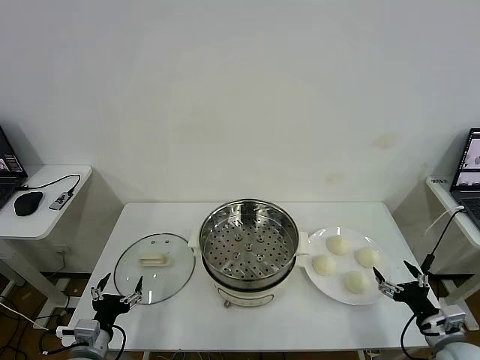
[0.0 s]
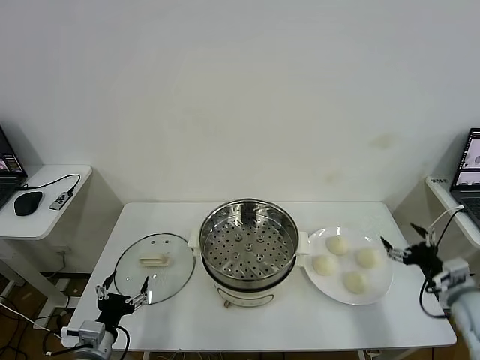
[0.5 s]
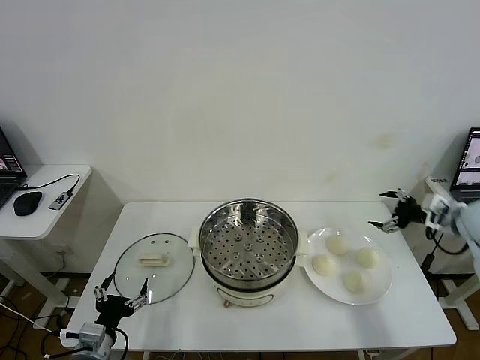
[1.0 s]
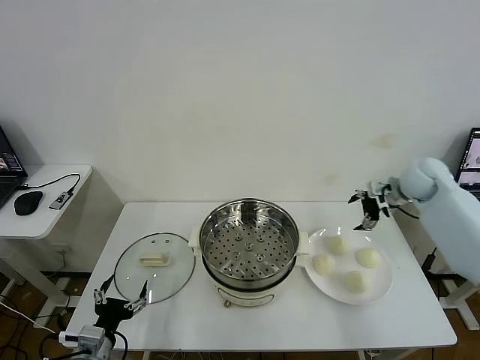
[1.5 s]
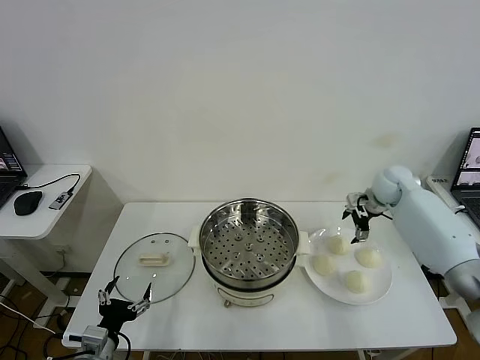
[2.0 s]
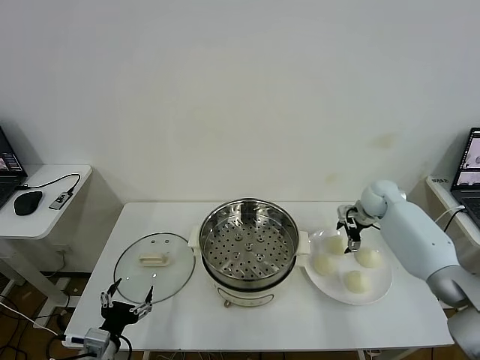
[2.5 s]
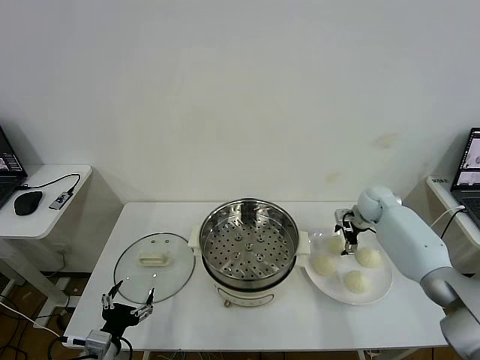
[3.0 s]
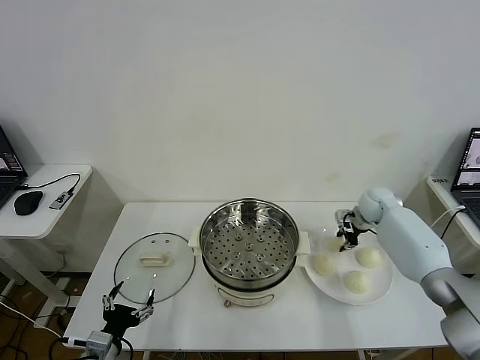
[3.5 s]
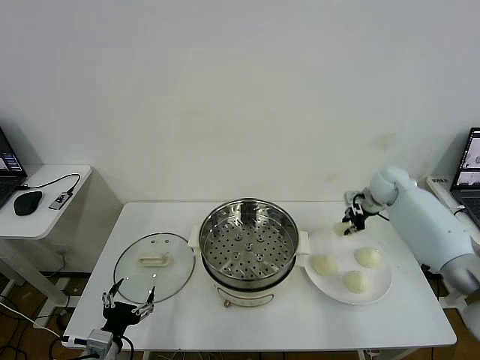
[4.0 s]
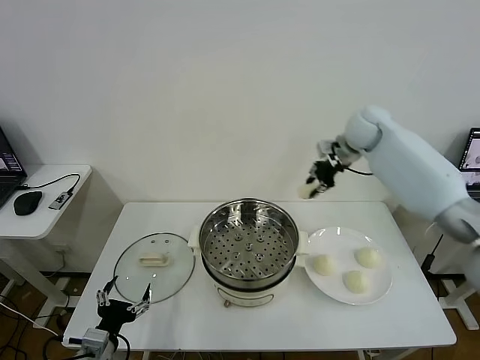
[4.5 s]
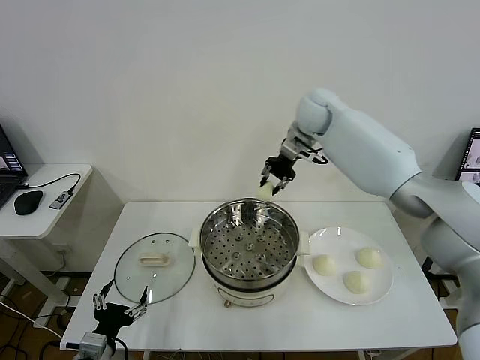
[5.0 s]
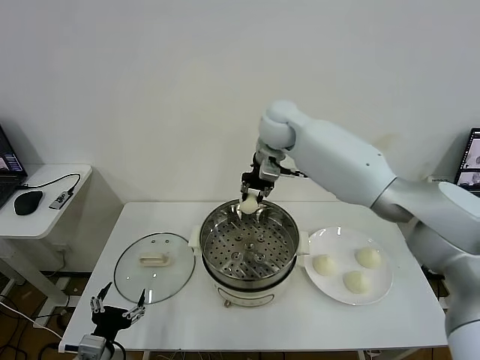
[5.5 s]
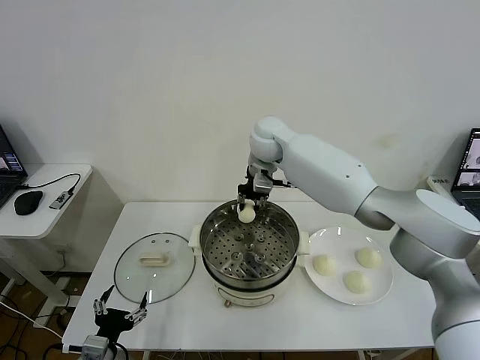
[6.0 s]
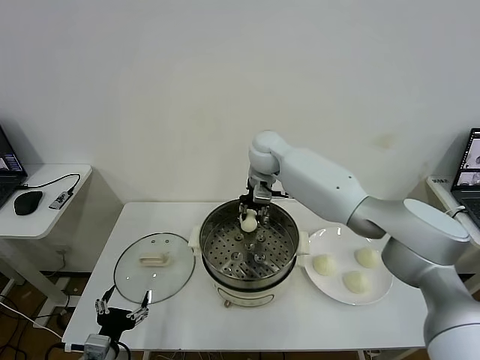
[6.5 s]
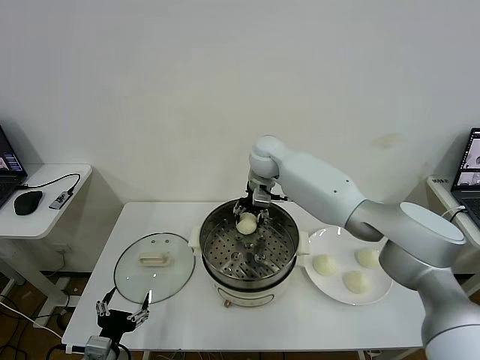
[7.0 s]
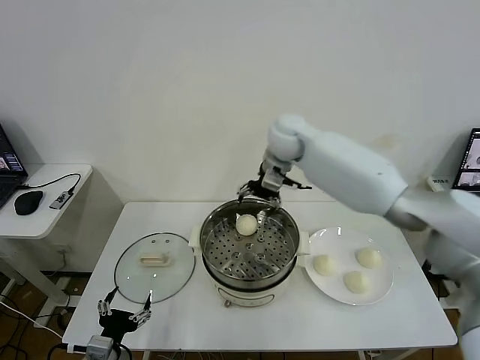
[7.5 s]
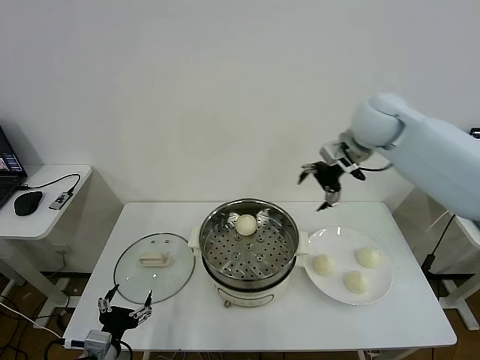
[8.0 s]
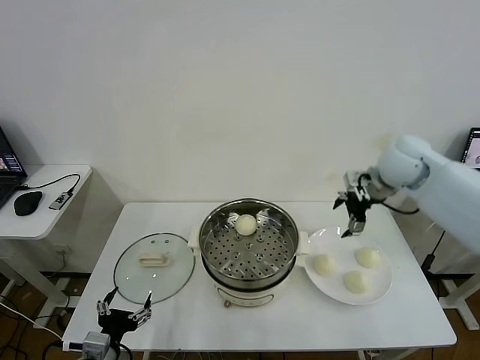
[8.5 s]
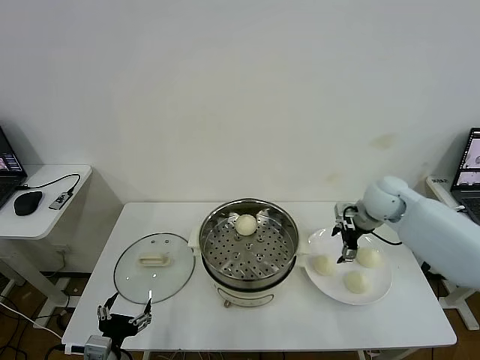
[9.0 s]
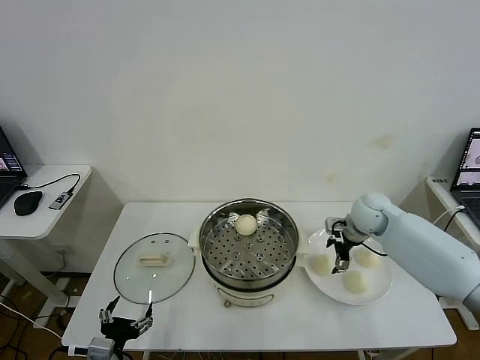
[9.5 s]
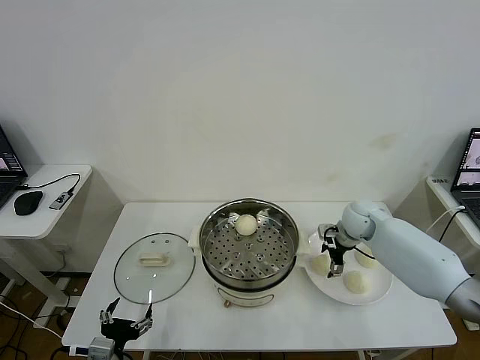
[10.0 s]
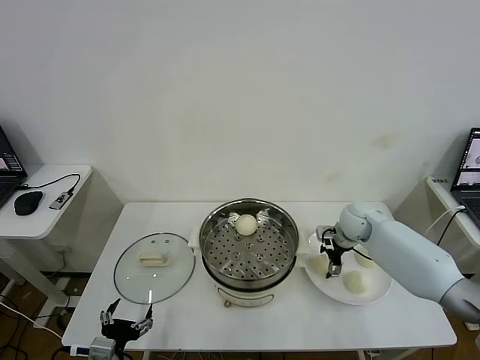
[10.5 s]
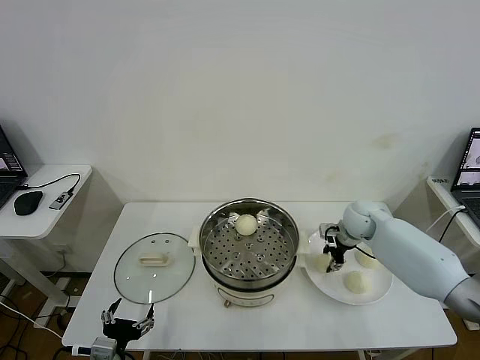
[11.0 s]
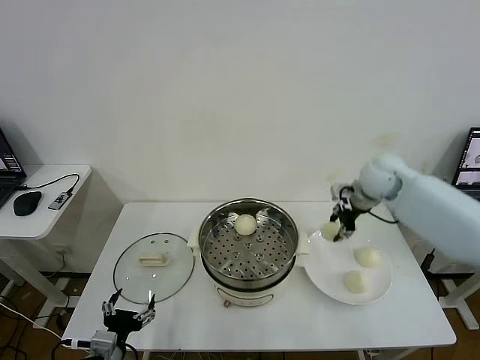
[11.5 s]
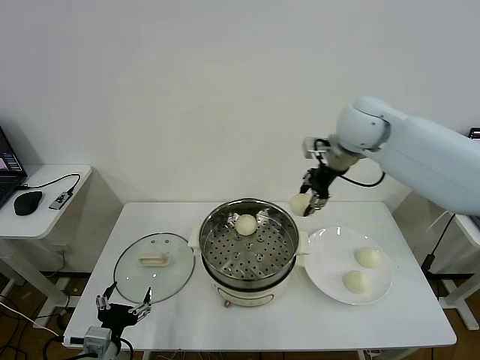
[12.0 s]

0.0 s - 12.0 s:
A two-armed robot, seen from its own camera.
Task of the whole recording: take steamed baozi put them in steamer then cover it.
Step, 0.0 s - 3.5 s: Grasp the baozi in the plate with right gripper.
Step, 4.0 s - 7.0 s: Place the baozi on the steamer with right gripper.
Step, 7.5 s - 11.0 s: Grasp the baozi in the plate with right gripper.
2.0 s - 4.0 s: The right gripper moves upward, approximately 5 cm, and closes up.
4.0 s - 6.0 s: The right gripper goes about 30 cm to the left.
6.0 s - 8.0 s: The right gripper goes approximately 20 cm to the right, and opens.
8.0 s - 10.0 s: The right gripper is displaced downward by roughly 25 cm.
10.0 s - 12.0 s: The right gripper moves upward, roughly 25 cm, and closes up.

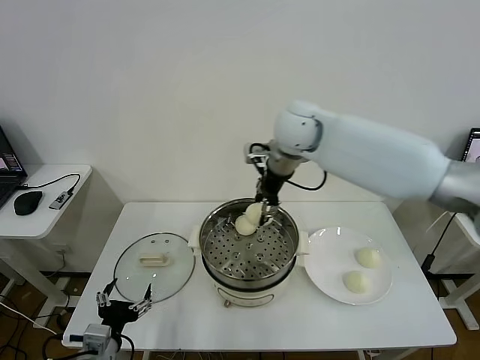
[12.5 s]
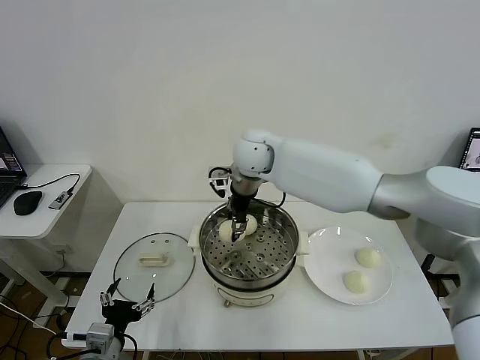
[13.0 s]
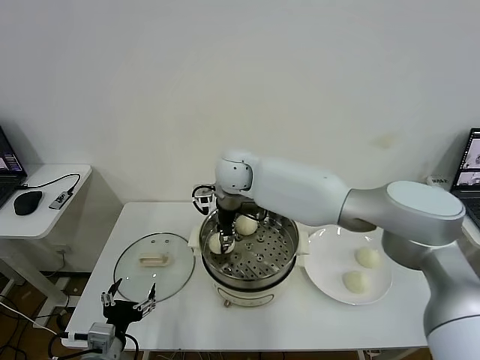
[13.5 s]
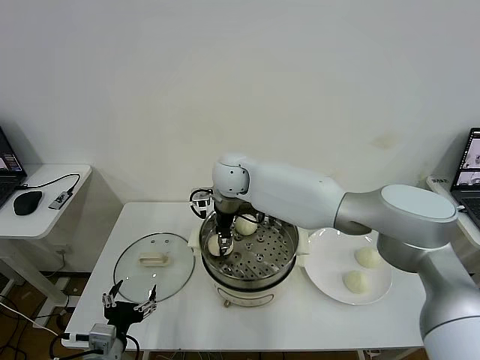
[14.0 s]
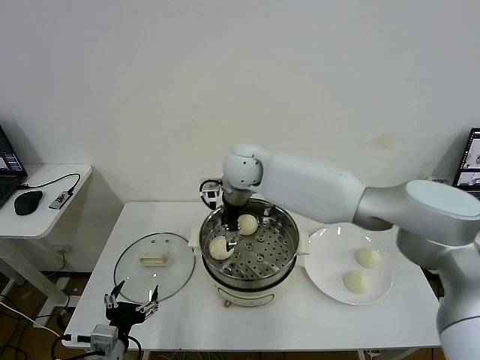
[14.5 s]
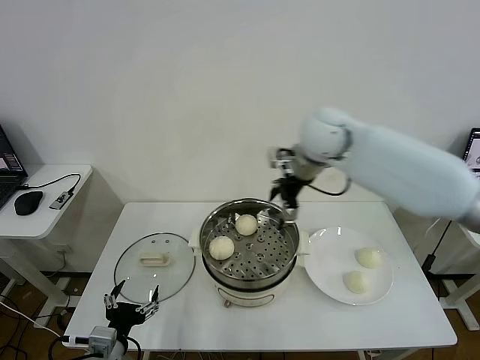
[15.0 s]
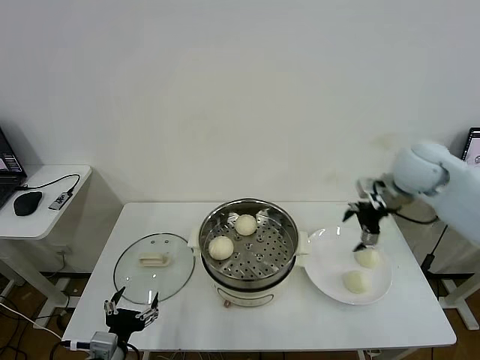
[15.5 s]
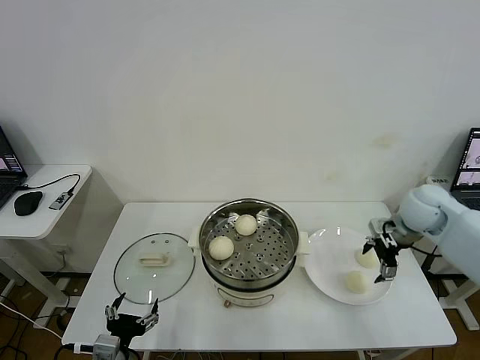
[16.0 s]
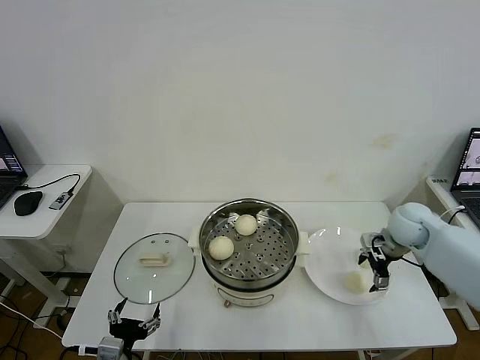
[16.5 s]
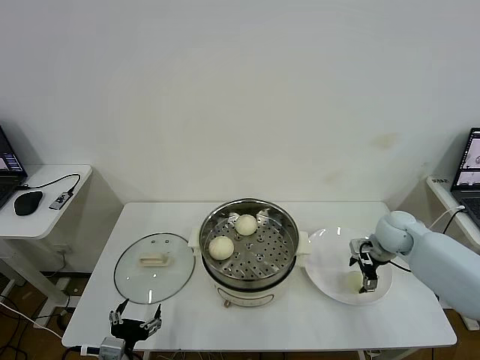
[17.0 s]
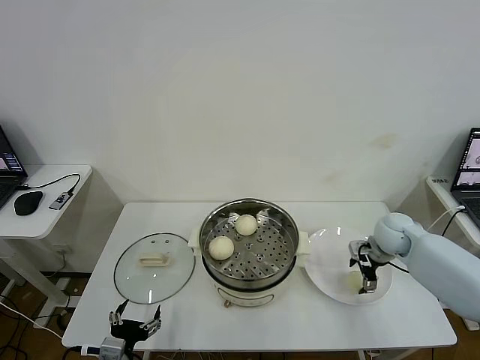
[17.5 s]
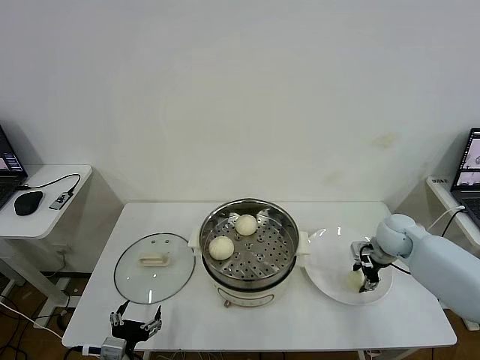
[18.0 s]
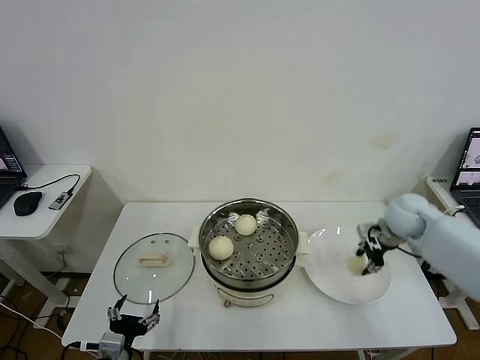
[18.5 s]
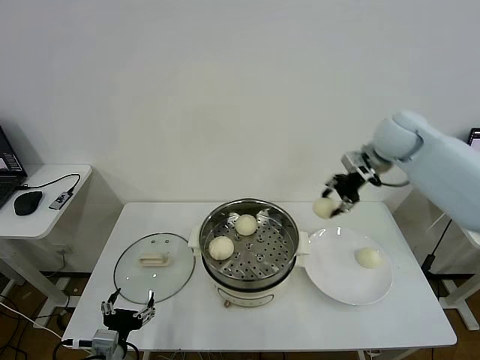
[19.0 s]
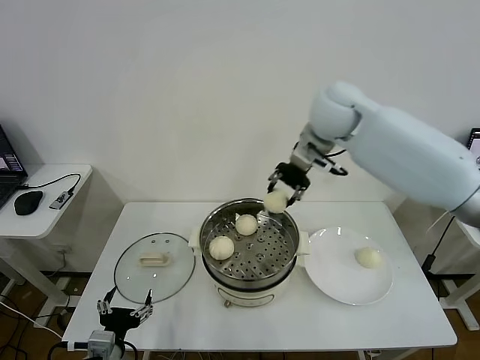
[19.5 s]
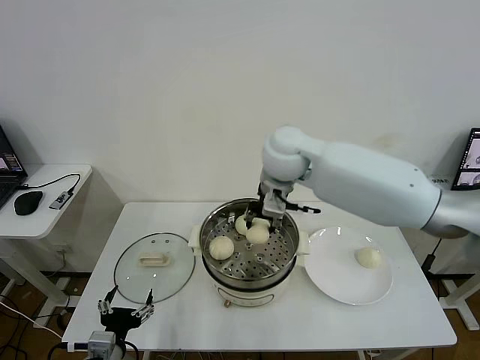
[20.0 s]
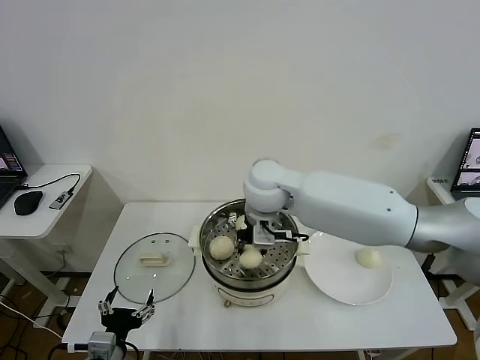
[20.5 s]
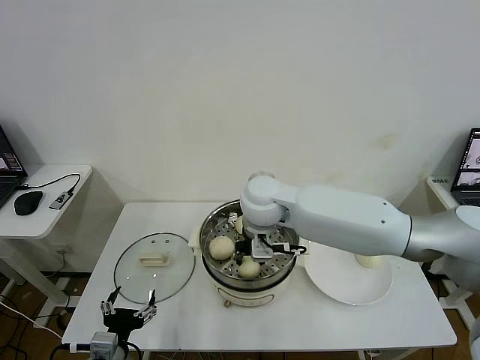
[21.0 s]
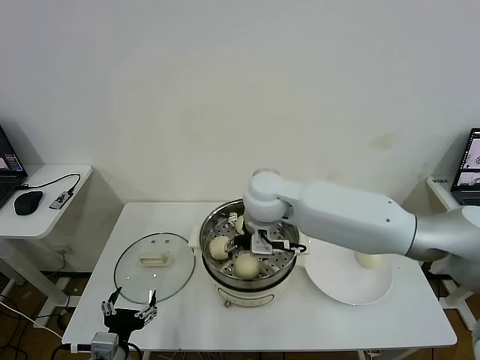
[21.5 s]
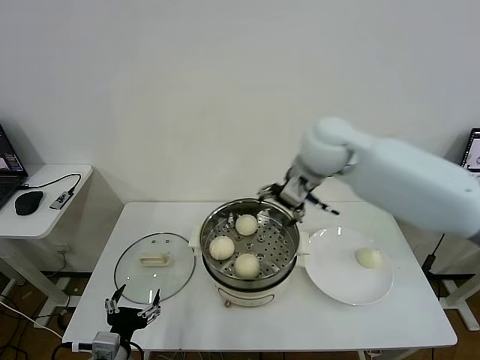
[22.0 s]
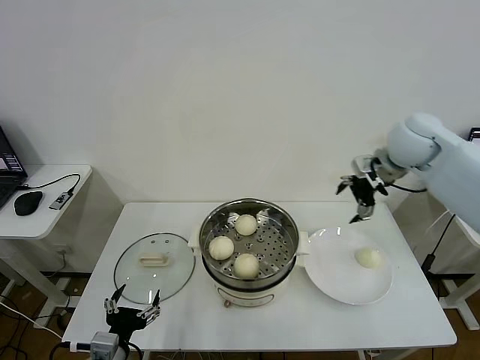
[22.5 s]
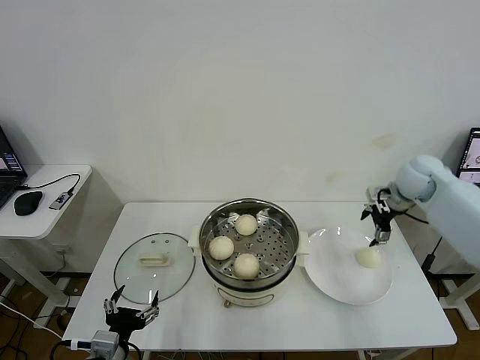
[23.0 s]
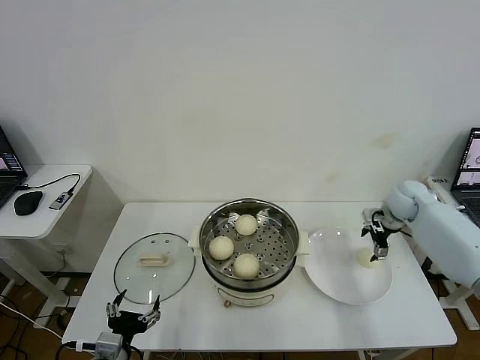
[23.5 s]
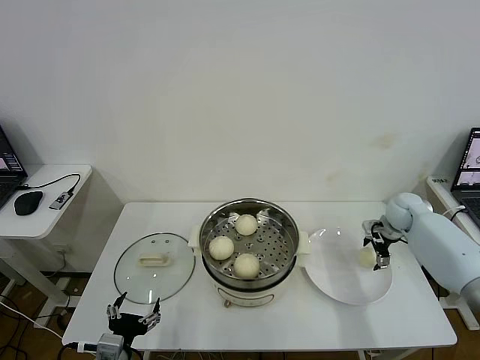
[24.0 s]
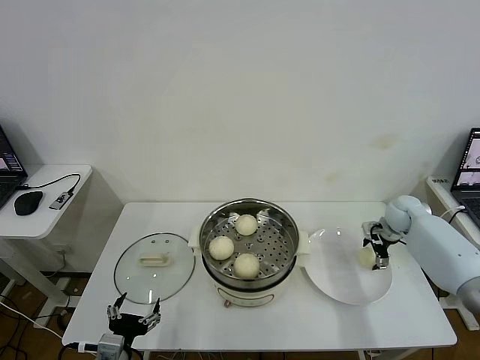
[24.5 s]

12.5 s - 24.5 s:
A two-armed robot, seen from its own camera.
Task of the whole recording: take steamed baozi put them in steamer then cover it.
Step, 15.0 s - 18.0 s: Grasp the baozi in the plate with right gripper.
Step, 18.5 s - 21.5 s: Place the baozi on the steamer with right gripper.
12.5 s - 14.5 s: The right gripper travels to the left and downward by some 10 cm, and opens up.
14.5 s - 16.5 s: The right gripper heads to the right, covering approximately 35 cm.
16.5 s - 18.5 s: The right gripper closes its fingers.
18.5 s - 20.5 s: The right gripper heads to the left, covering roughly 35 cm.
20.5 s - 22.5 s: The right gripper moves to the right, about 30 cm, and opens up.
22.5 s - 24.5 s: The right gripper shifts some 25 cm downward and to the right.

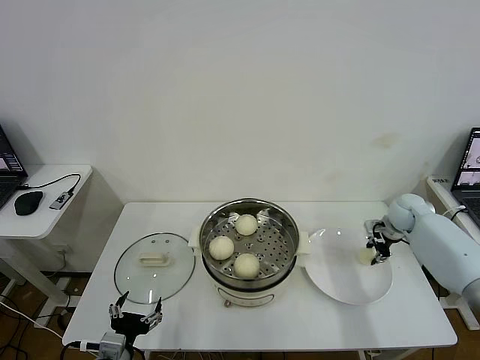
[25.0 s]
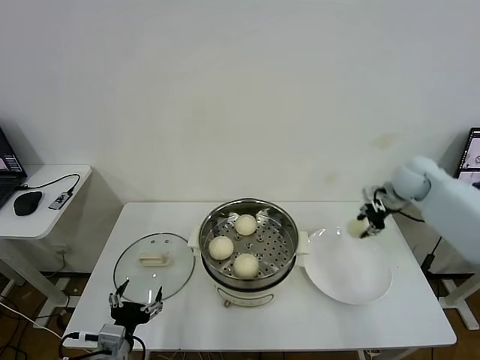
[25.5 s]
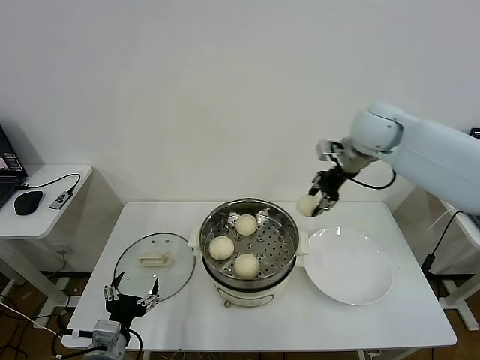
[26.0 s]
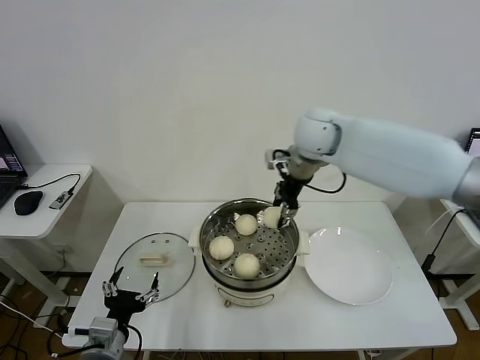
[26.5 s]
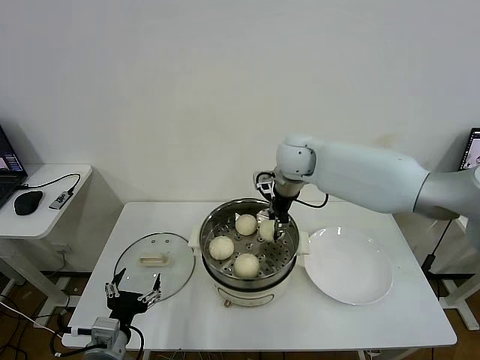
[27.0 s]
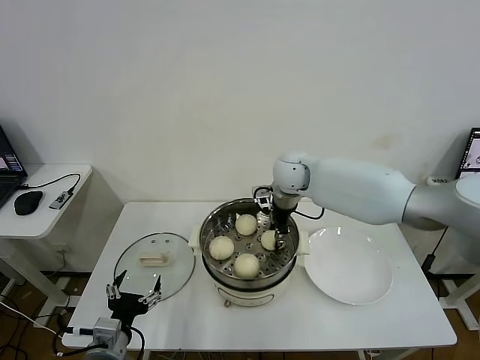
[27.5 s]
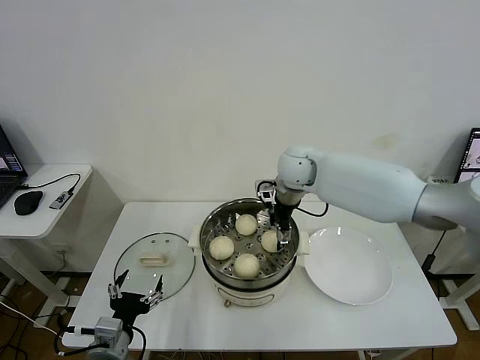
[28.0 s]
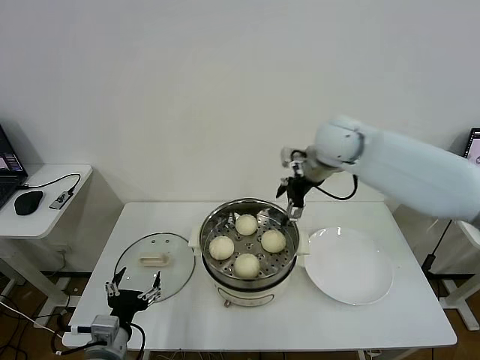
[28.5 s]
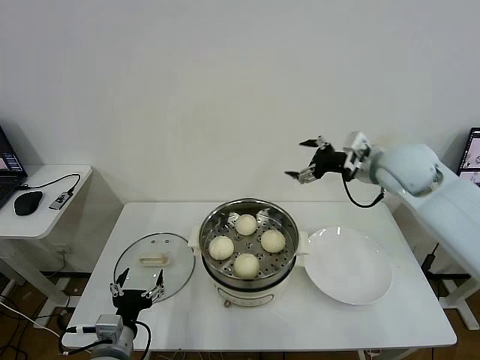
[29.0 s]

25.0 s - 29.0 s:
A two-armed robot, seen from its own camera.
Task of the whole recording: take steamed baozi put them in steamer then cover it.
Step, 25.5 s - 28.0 s: Place the baozi on the steamer with right gripper.
25.0 s - 27.0 s: The right gripper moves to the left and upward, about 35 cm.
27.0 s - 29.0 s: The right gripper shifts about 20 cm to the right and backward, and opens up.
